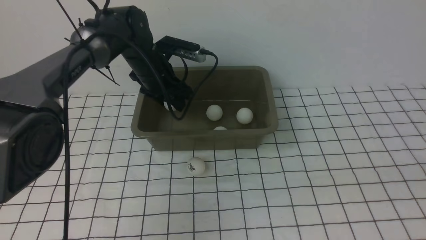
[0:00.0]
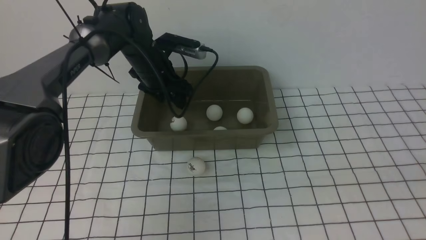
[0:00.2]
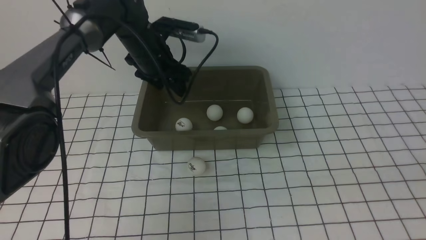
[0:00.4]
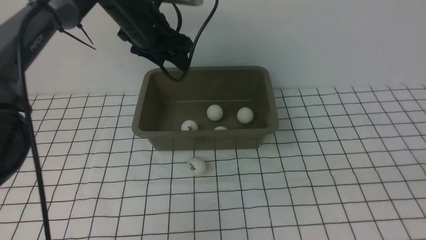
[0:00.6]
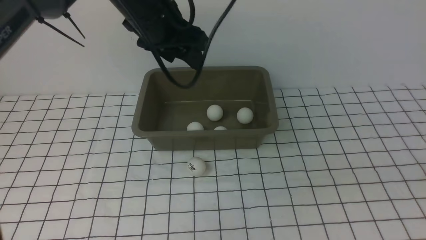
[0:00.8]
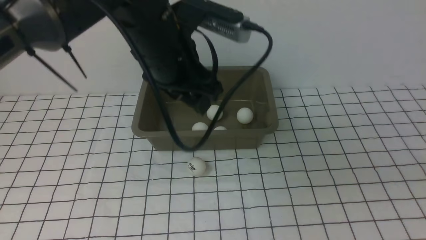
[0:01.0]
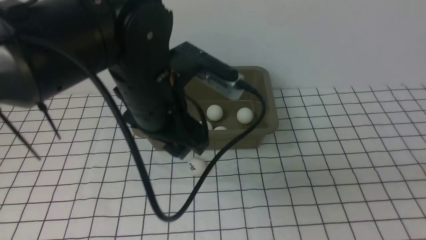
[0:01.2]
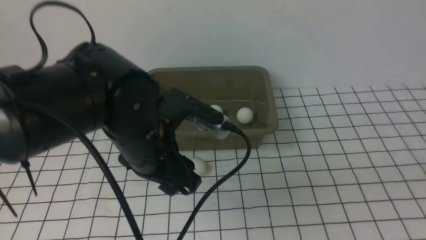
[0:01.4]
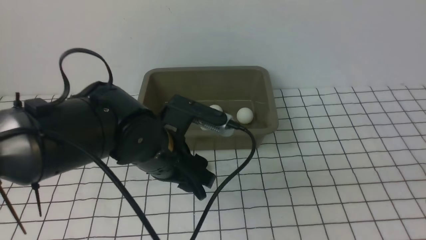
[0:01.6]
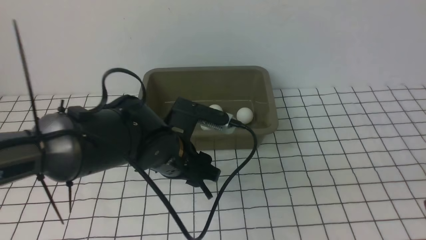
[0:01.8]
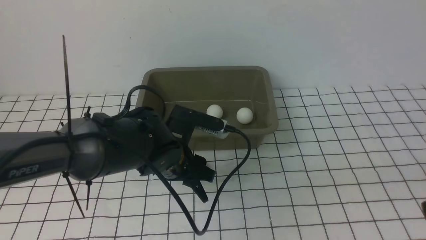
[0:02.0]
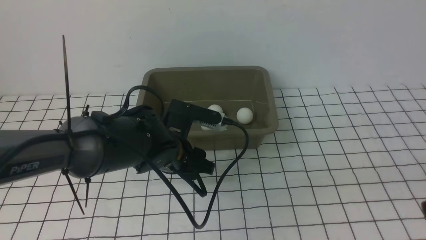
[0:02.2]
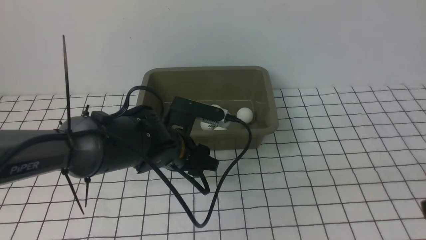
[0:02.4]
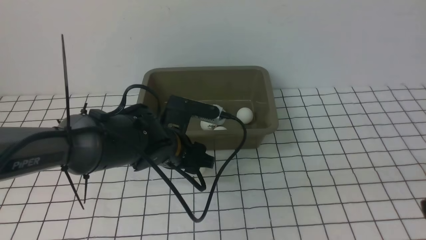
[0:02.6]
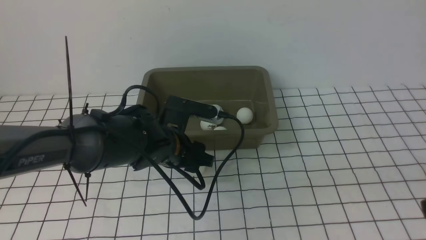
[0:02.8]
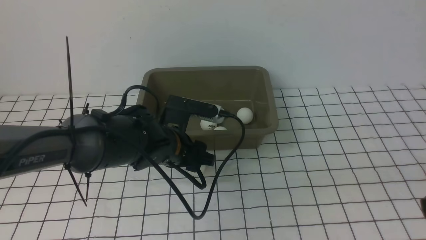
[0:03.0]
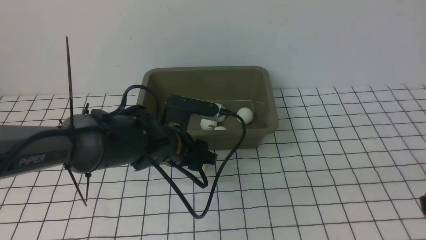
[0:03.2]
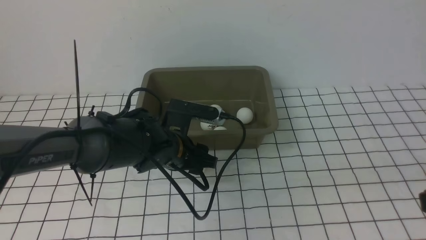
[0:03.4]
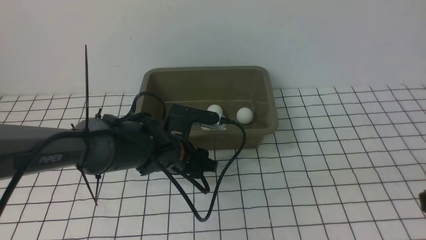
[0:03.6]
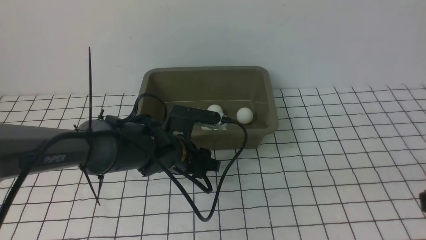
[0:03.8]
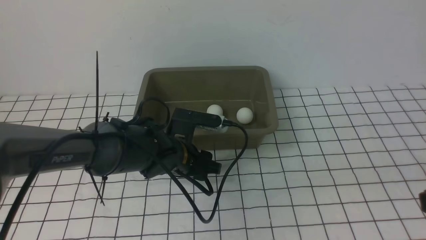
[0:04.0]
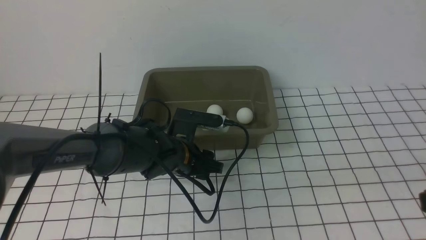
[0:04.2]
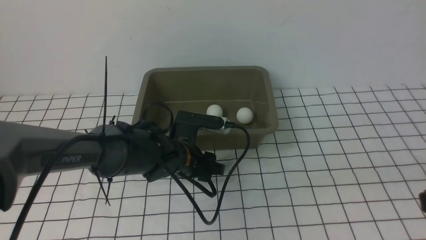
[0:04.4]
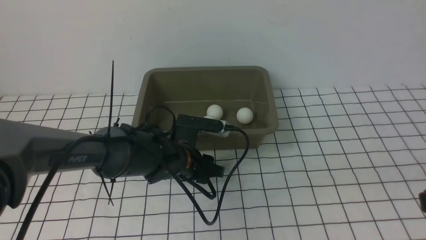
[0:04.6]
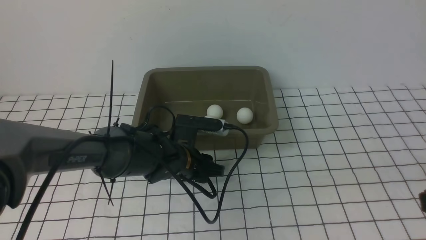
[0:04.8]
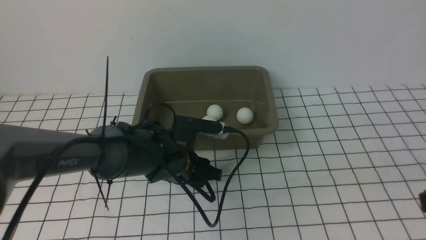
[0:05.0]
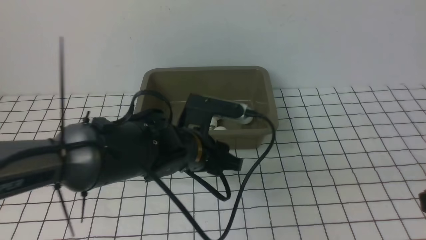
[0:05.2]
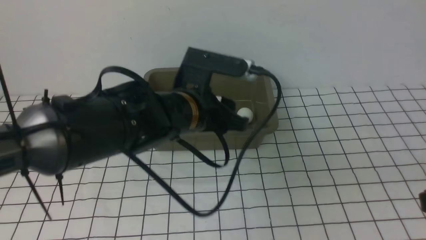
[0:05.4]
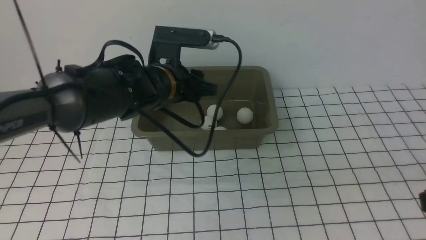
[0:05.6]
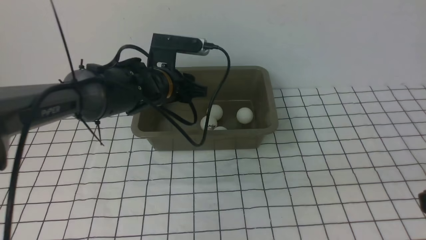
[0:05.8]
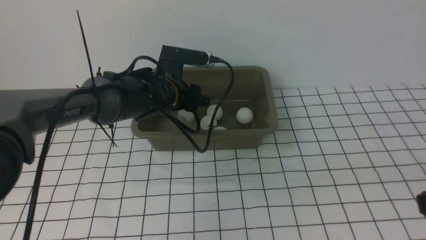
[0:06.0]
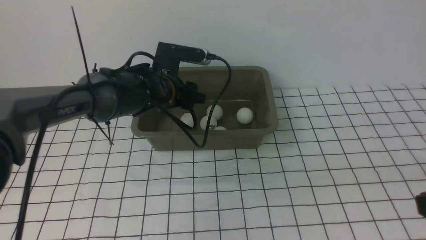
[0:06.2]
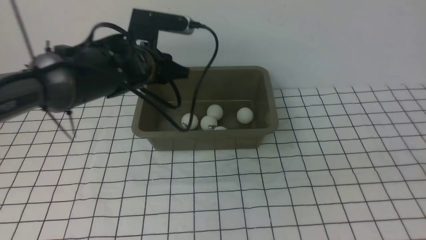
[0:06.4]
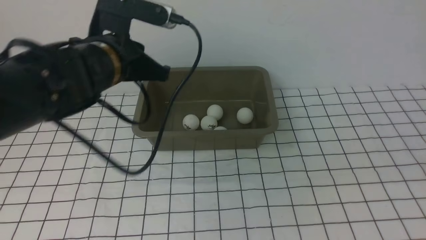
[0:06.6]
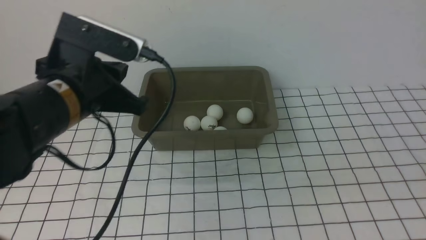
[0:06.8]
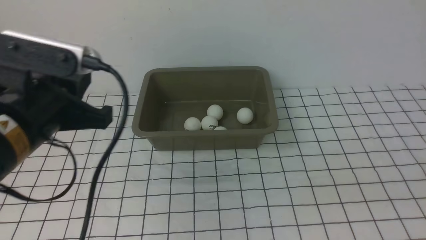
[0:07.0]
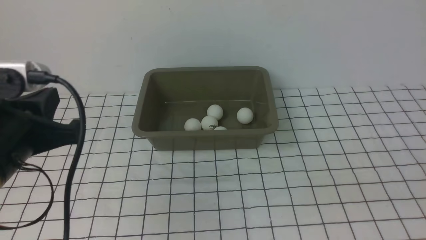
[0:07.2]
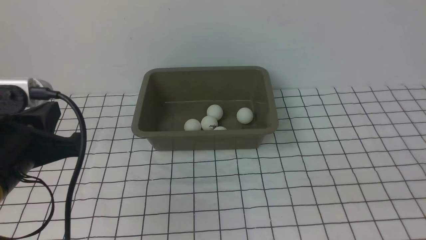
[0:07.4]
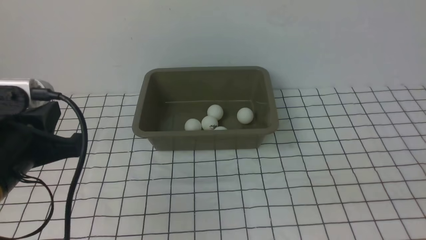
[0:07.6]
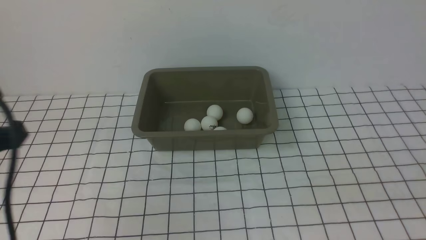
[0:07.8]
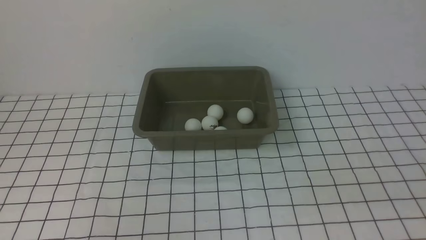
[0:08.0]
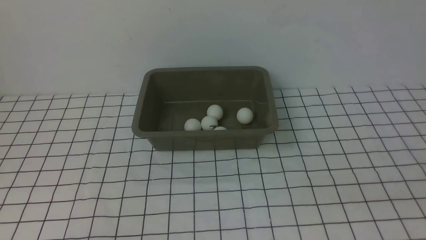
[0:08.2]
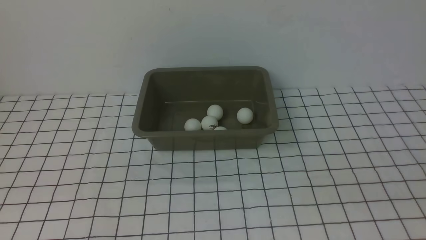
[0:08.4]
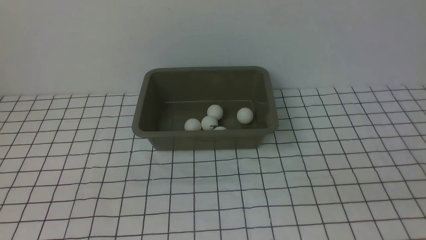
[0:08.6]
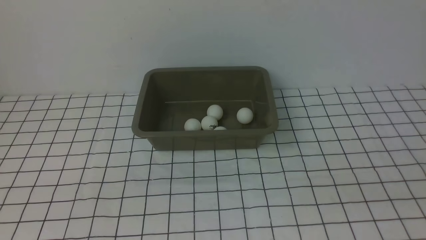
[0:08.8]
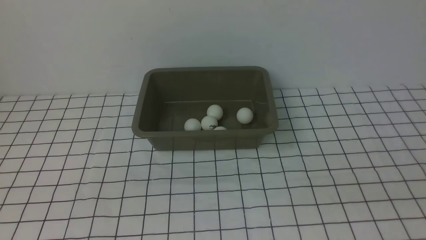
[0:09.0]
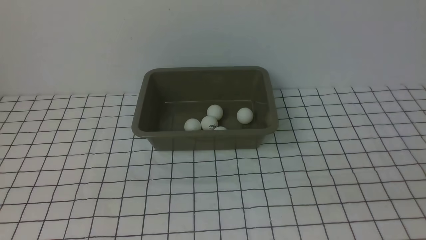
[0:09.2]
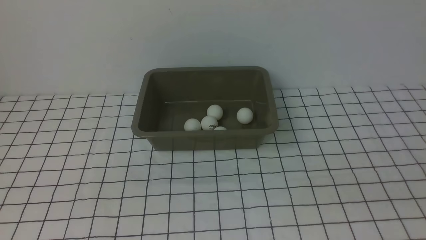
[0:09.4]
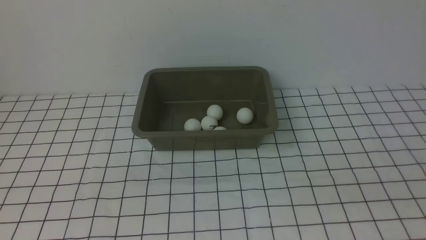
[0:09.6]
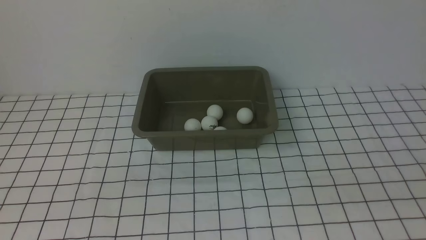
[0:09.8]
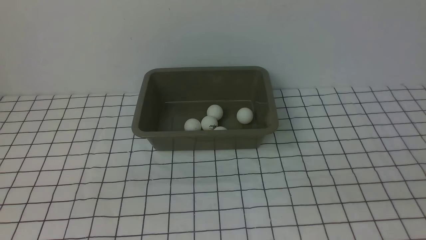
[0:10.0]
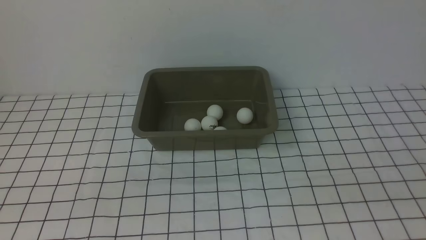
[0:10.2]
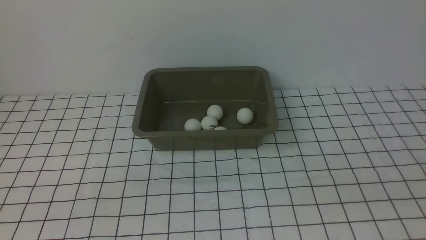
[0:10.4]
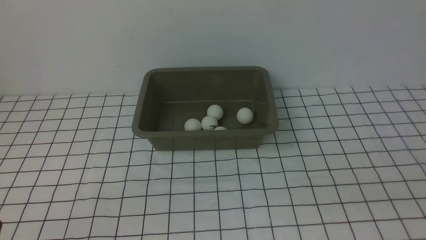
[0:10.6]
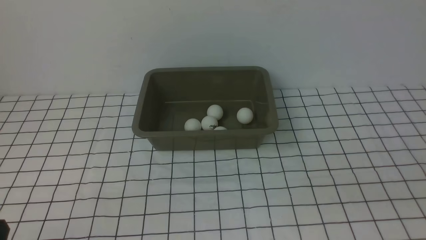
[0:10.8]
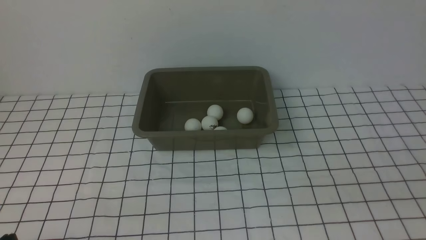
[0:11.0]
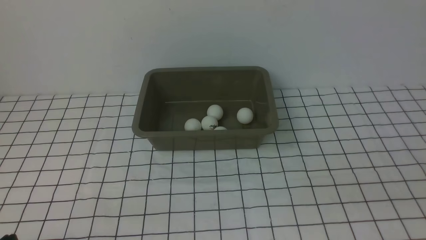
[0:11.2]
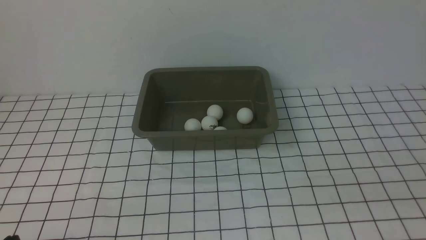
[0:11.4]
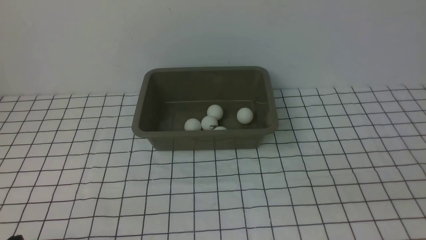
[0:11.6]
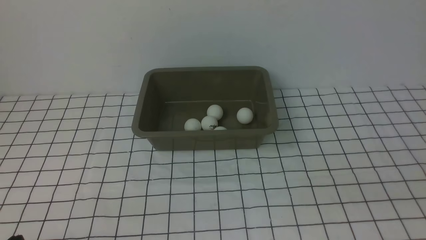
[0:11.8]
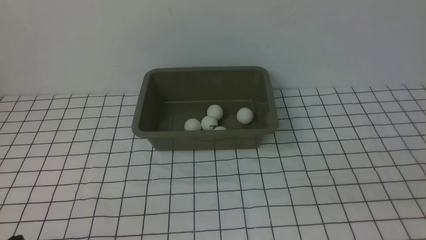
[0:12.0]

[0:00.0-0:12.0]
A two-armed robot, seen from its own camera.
Step, 0:00.4 to 0:05.2: use the left arm to clamp the table tennis ball closest to it.
Step, 0:05.4 to 0:06.2: use the left arm to put the table tennis ball into the box.
0:00.0 to 0:01.6: The left gripper is displaced backward by roughly 20 cm.
0:01.6 to 0:03.0: The grippers stay close to where they were, moving slightly.
0:03.0 to 0:04.4: There are only small adjustments of the grippers.
0:04.4 to 0:06.0: The left gripper moves upward, forward and to the left, approximately 15 cm.
0:06.0 to 0:07.6: The left gripper moves backward and to the left, approximately 30 cm, and closes its fingers. The right gripper heads downward, covering some 5 cm.
0:07.6 to 0:09.0: The left gripper shifts some 10 cm backward and downward.

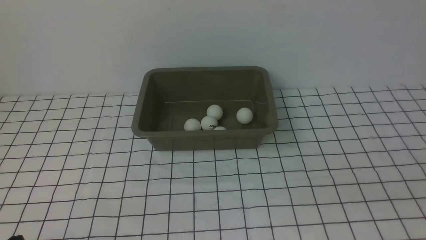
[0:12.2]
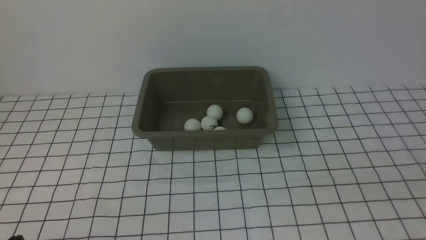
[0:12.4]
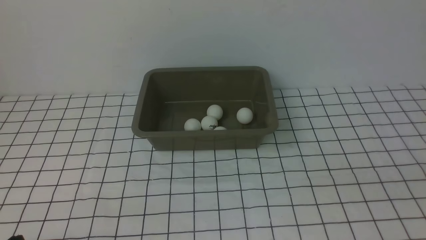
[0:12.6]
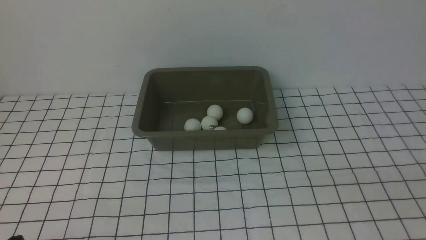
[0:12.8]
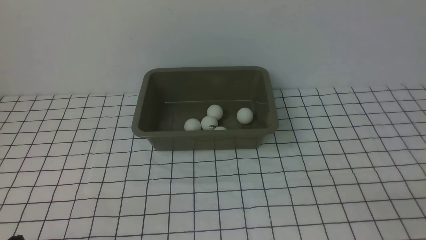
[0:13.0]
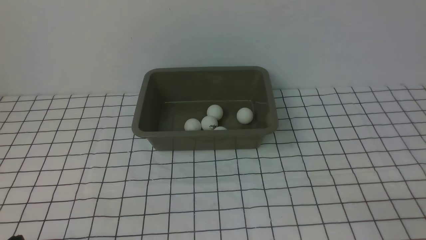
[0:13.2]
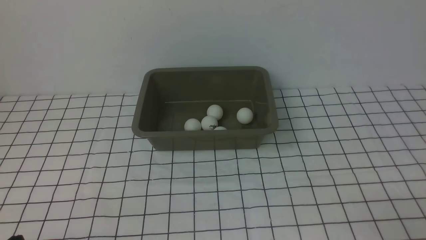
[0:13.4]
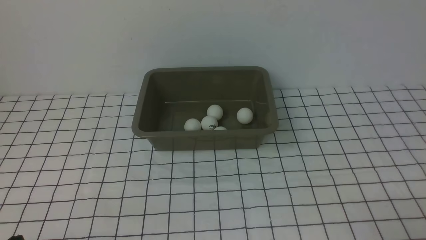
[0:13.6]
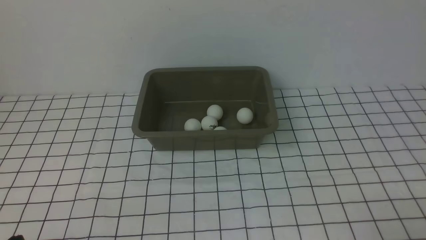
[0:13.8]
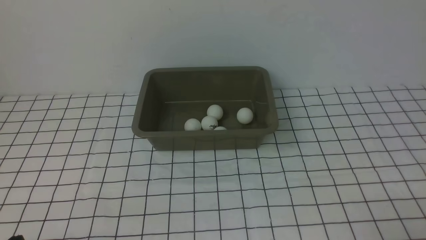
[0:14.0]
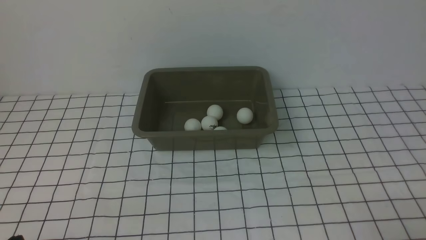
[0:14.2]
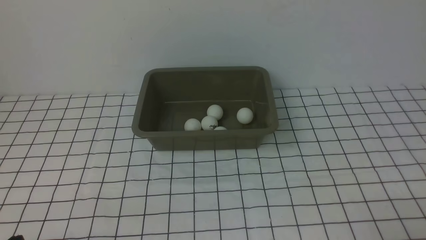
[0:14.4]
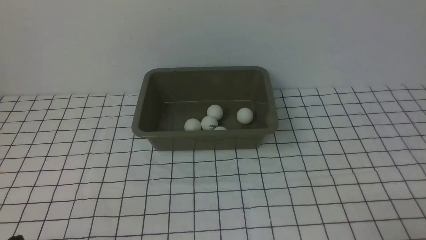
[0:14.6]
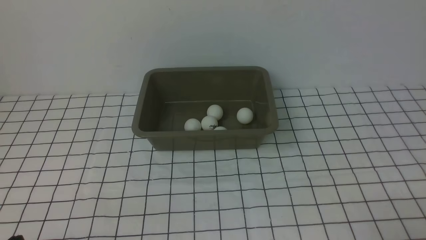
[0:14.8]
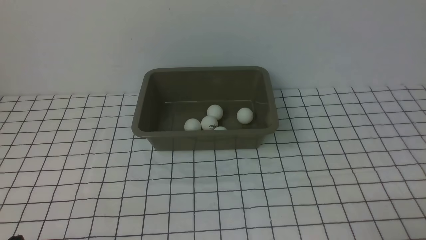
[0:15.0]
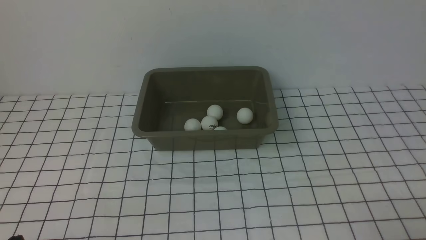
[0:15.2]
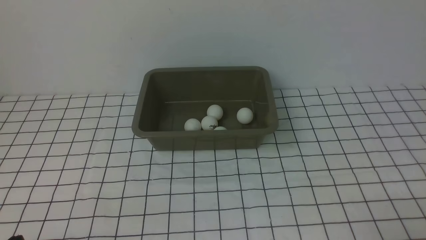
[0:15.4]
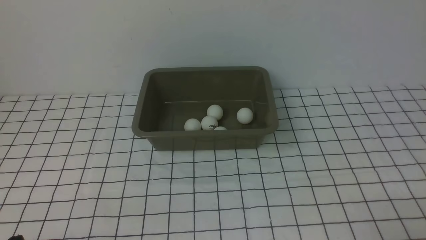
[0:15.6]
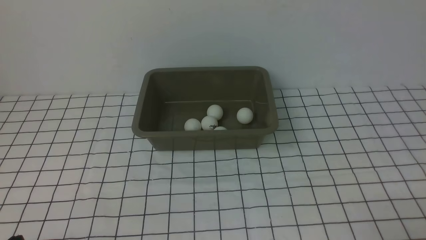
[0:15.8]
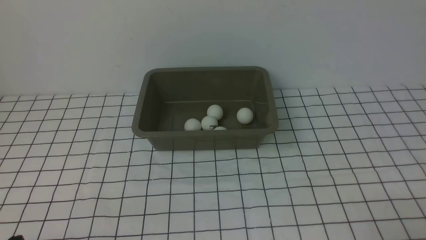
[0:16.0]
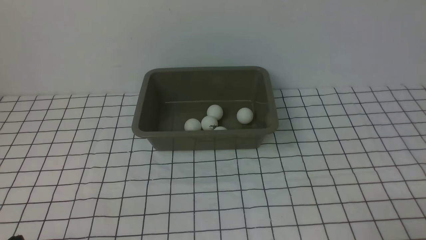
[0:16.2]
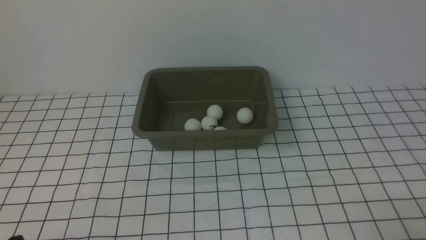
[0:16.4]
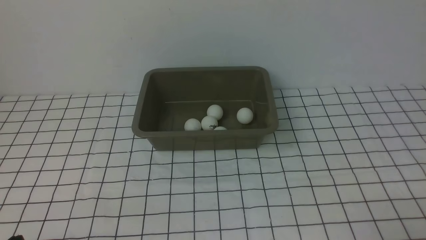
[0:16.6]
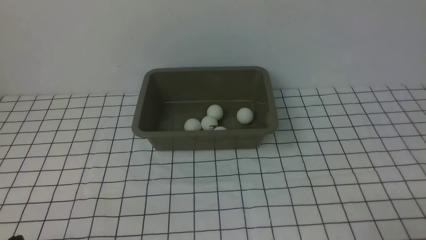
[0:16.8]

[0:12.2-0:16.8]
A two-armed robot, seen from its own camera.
0:13.8 to 0:16.8: Neither gripper changes place.
